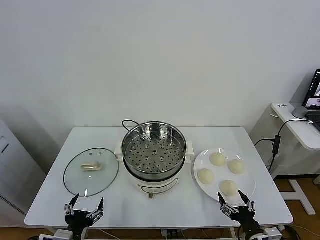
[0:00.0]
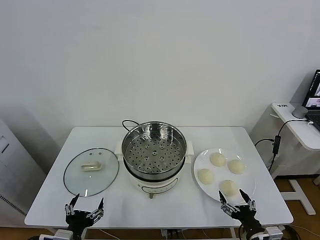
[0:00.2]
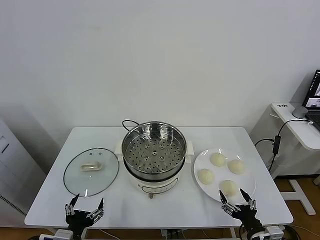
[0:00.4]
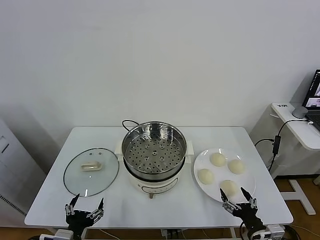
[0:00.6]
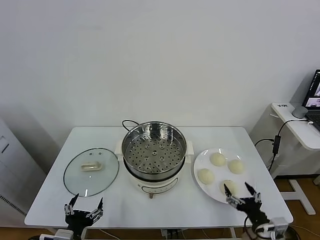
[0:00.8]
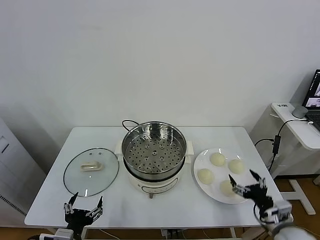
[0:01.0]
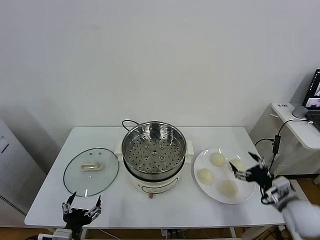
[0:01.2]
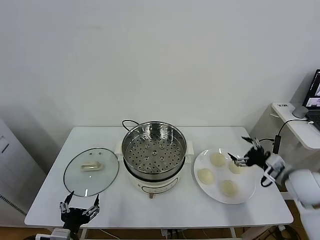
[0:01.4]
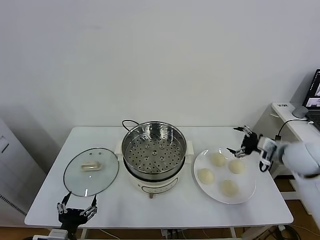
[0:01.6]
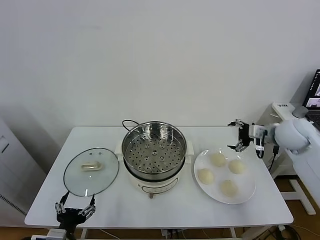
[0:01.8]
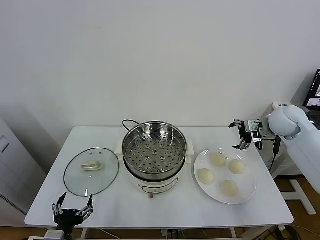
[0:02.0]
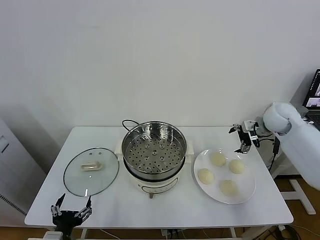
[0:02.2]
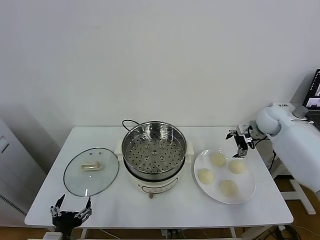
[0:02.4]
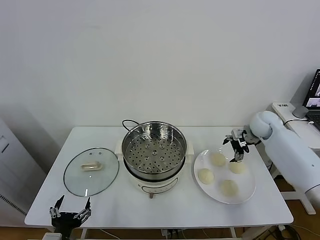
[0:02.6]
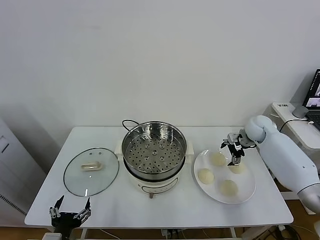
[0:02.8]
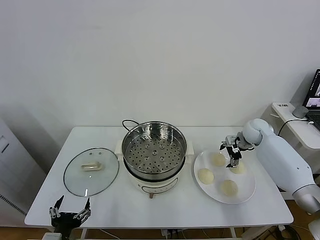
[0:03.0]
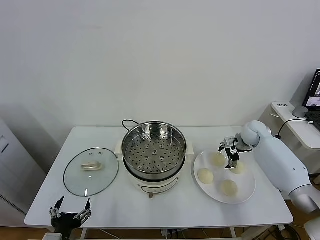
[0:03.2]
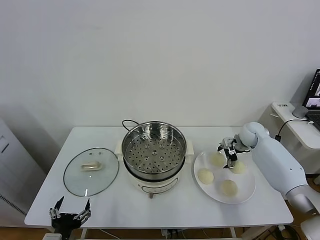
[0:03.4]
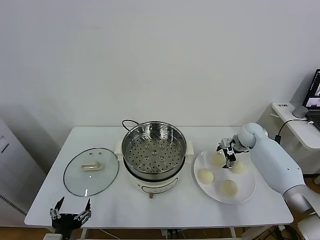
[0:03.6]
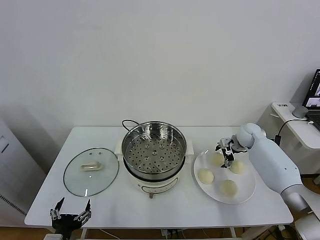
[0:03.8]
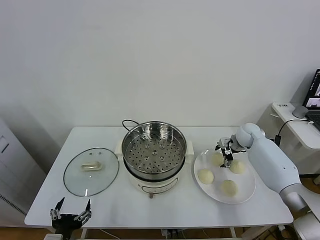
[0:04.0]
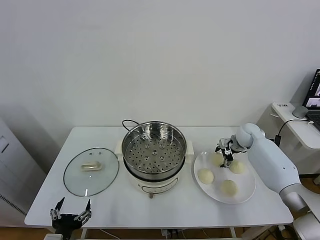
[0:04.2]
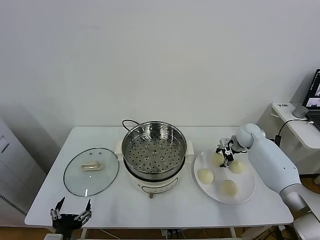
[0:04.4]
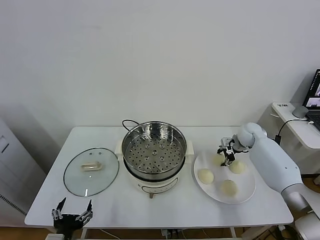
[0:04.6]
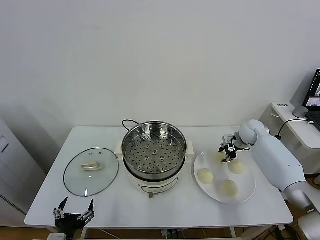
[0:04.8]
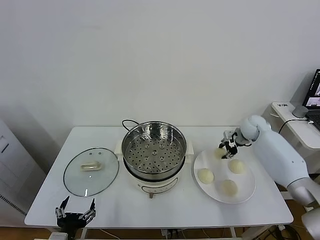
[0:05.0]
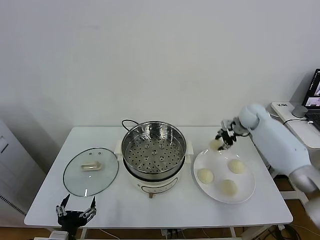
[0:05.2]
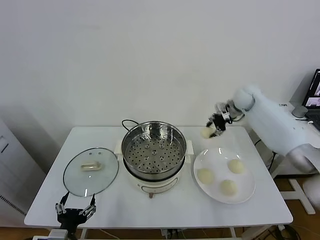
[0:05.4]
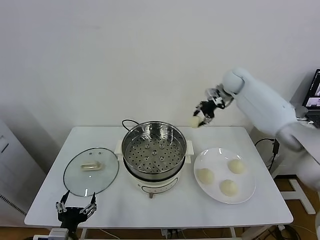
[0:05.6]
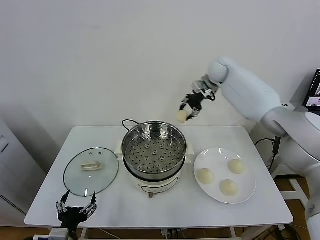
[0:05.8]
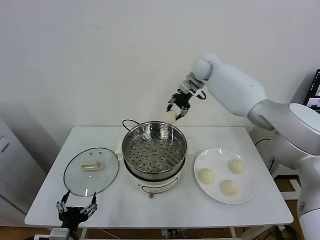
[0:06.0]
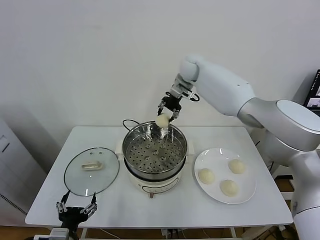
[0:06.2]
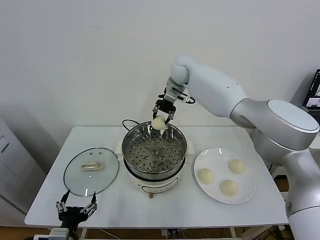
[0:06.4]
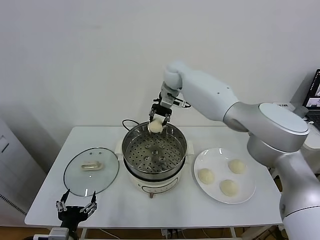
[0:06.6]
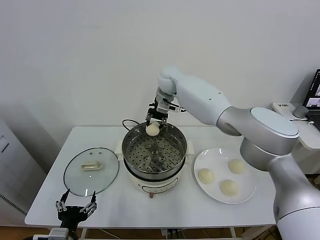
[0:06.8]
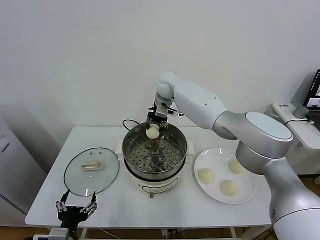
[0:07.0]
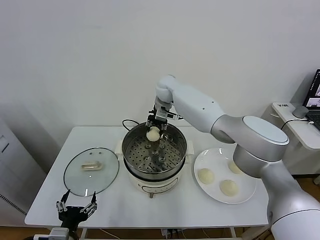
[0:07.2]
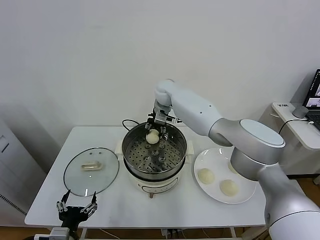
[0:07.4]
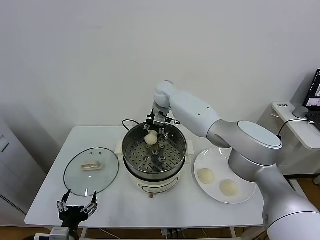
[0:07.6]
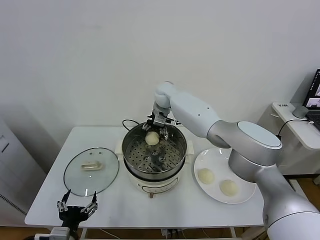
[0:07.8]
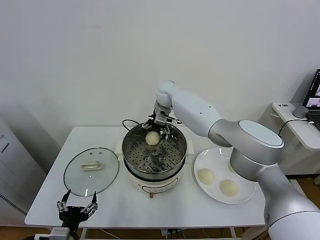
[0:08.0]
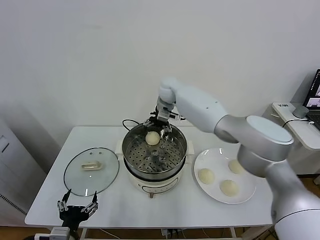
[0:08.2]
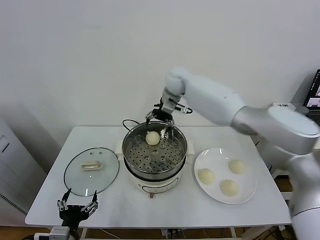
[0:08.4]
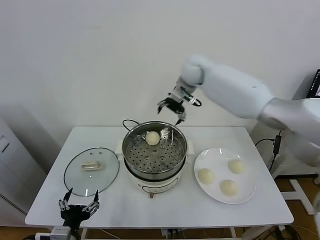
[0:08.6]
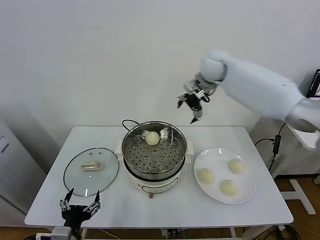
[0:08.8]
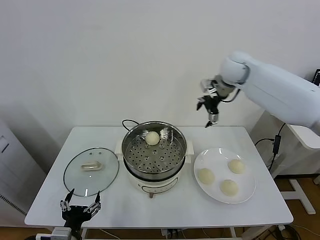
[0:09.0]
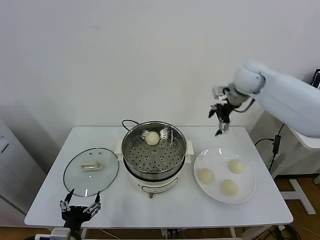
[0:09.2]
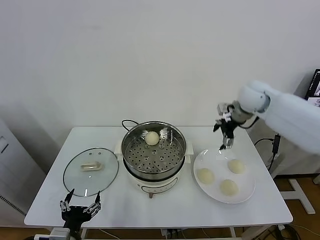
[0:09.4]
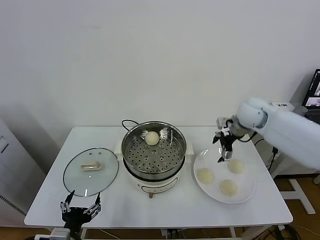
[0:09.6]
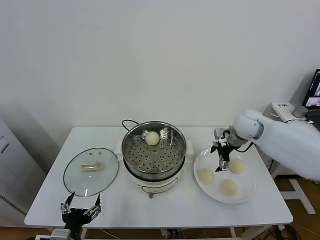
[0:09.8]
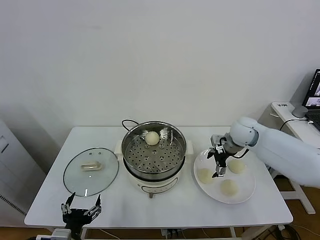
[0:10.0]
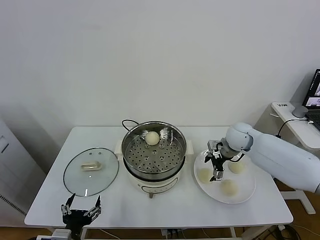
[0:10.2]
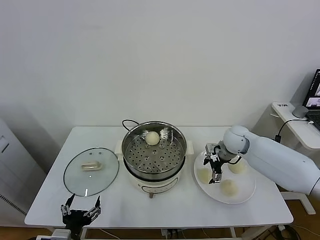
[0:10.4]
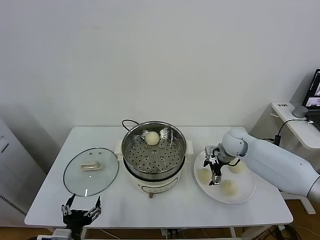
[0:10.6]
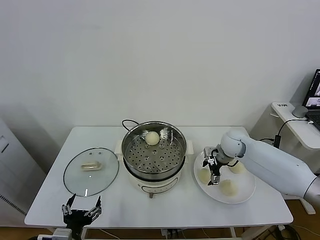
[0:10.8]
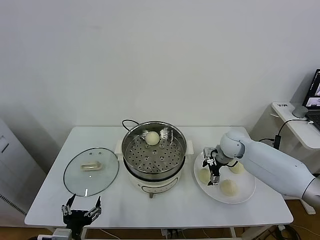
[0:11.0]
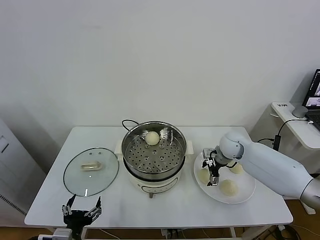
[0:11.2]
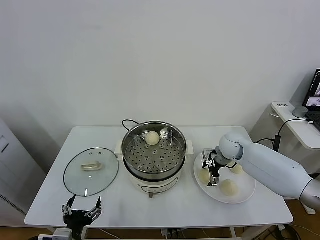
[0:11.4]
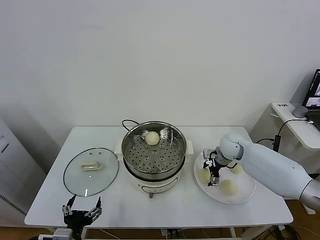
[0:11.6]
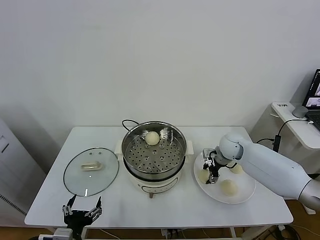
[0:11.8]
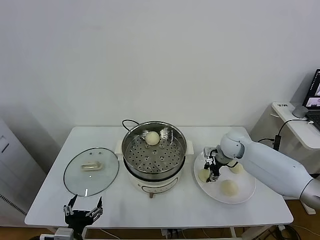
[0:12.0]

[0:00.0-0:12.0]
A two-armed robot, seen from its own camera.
Task of the whole recording: take steamed baozi put them in steamer.
Step, 0.0 to 4.6 s: Grasp the baozi in the plate with right gripper.
Step, 4.8 to 8.2 s: Place the baozi on the steamer with right gripper.
Step, 8.4 to 12.0 s: Grasp the baozi in the plate with right gripper.
1.6 to 3.0 s: The right gripper is displaced forward and downward by roughly 20 cm.
3.0 to 4.4 s: The right gripper closes.
4.4 to 6.0 s: The right gripper travels upward and to the left by approximately 35 cm.
6.0 to 7.6 s: The right gripper moves to the left and downward, roughly 15 cm.
7.6 to 9.0 s: The right gripper travels to the right and upward by some 25 cm, and opens its fingers.
9.0 to 10.4 s: The right gripper moves downward, roughly 25 cm.
10.4 to 12.0 s: The right gripper closes up.

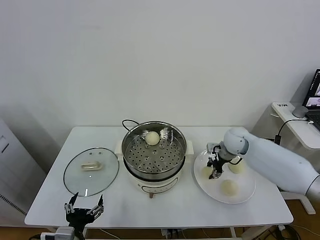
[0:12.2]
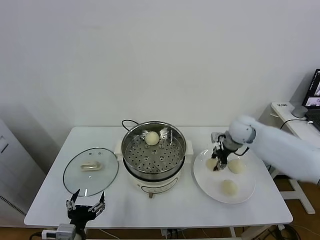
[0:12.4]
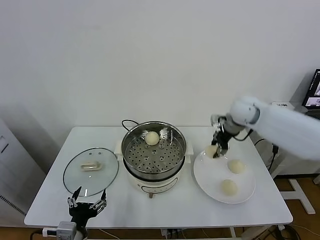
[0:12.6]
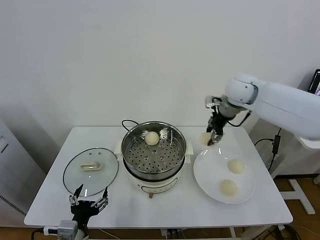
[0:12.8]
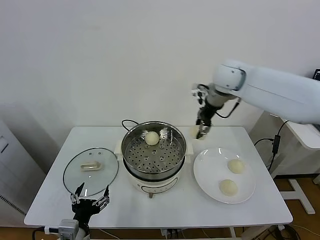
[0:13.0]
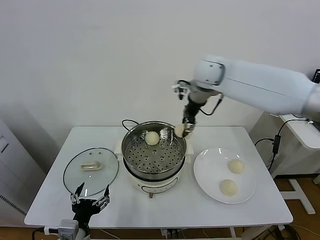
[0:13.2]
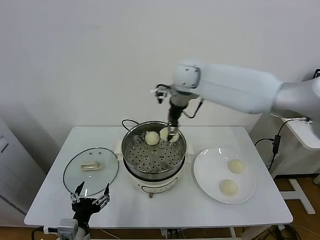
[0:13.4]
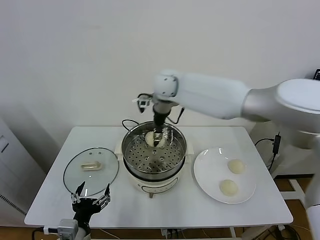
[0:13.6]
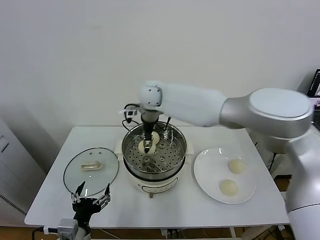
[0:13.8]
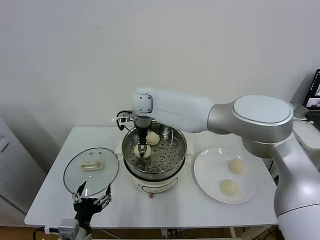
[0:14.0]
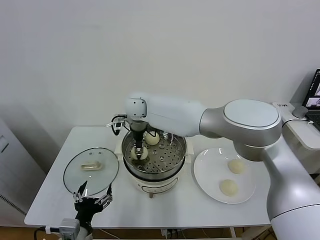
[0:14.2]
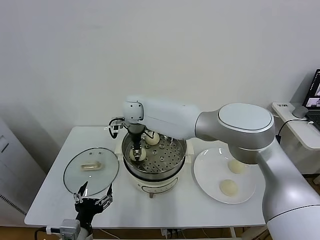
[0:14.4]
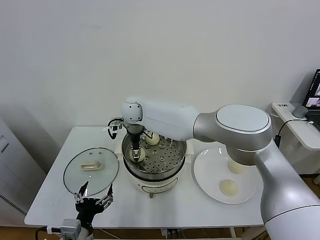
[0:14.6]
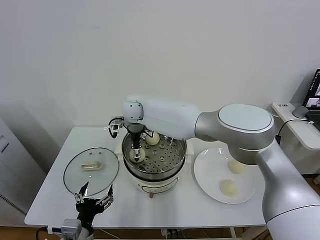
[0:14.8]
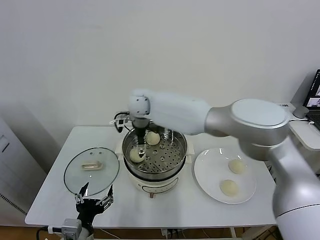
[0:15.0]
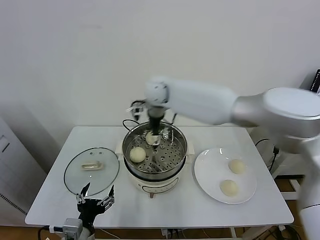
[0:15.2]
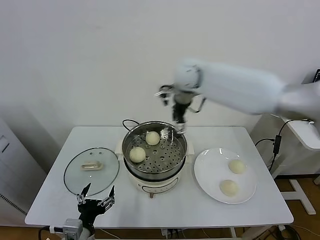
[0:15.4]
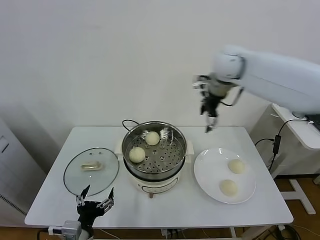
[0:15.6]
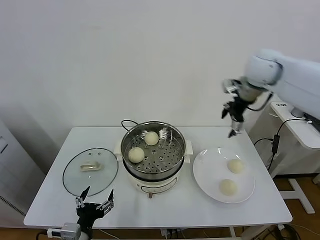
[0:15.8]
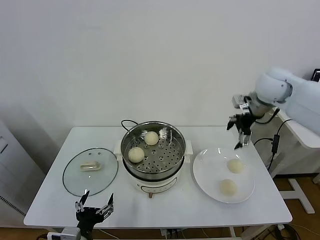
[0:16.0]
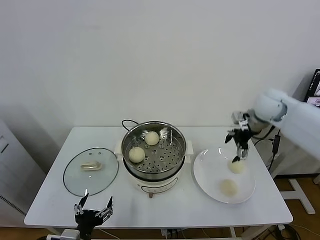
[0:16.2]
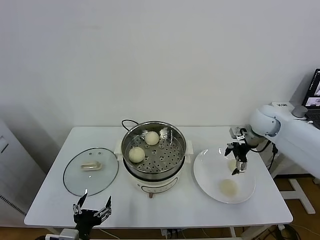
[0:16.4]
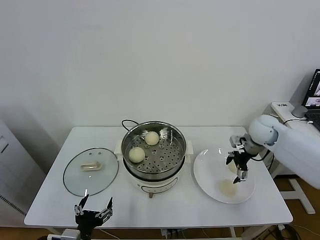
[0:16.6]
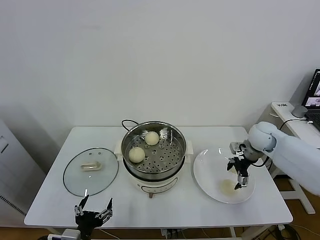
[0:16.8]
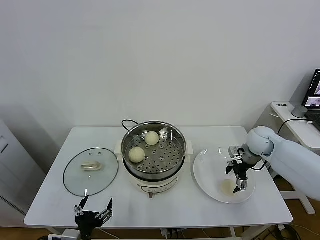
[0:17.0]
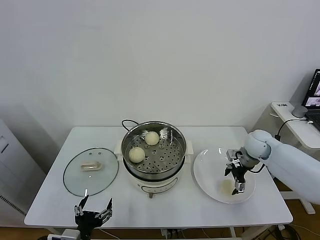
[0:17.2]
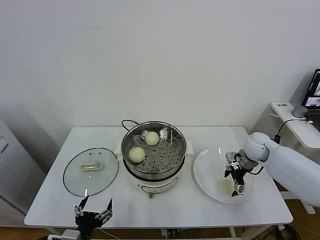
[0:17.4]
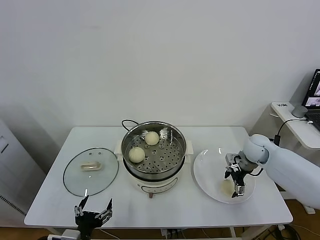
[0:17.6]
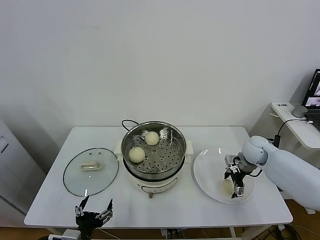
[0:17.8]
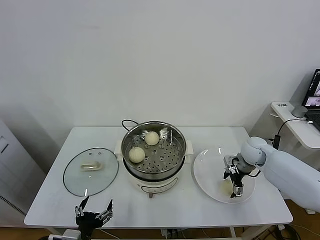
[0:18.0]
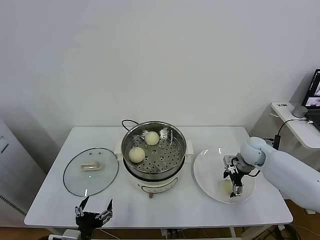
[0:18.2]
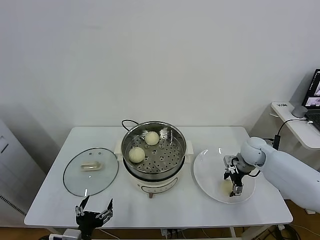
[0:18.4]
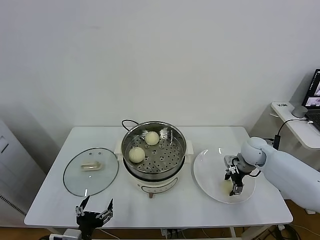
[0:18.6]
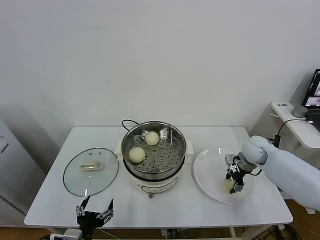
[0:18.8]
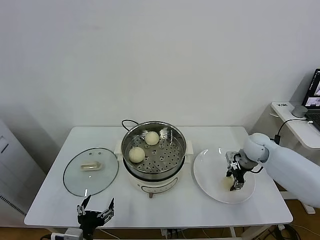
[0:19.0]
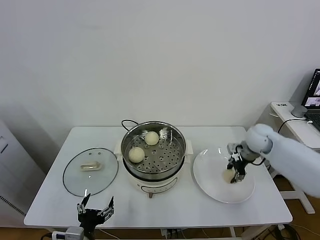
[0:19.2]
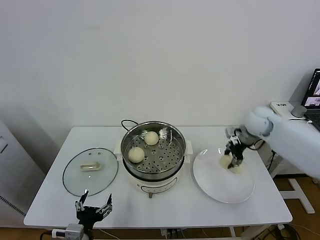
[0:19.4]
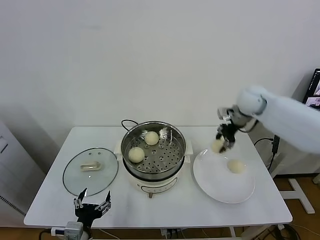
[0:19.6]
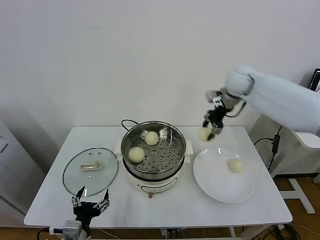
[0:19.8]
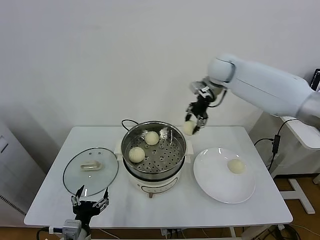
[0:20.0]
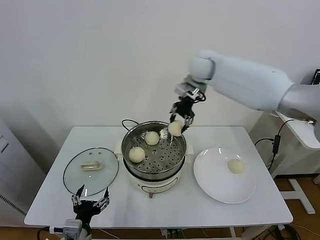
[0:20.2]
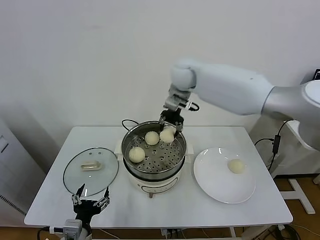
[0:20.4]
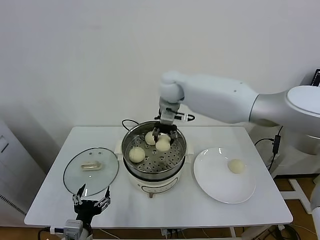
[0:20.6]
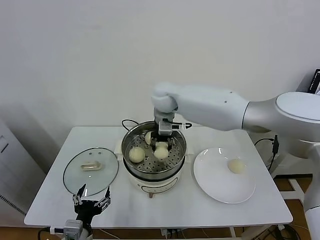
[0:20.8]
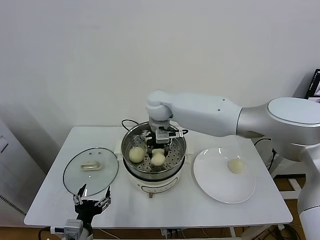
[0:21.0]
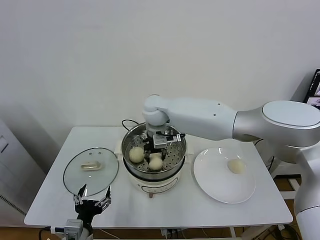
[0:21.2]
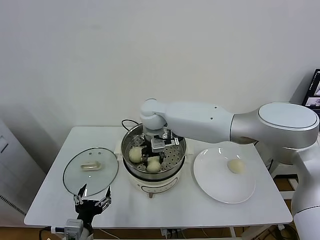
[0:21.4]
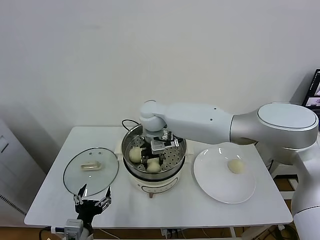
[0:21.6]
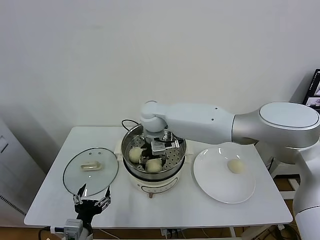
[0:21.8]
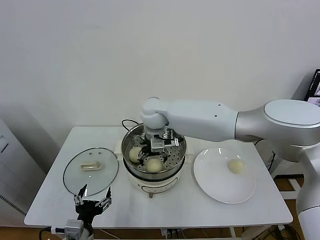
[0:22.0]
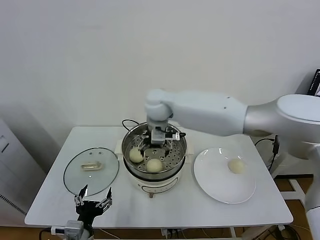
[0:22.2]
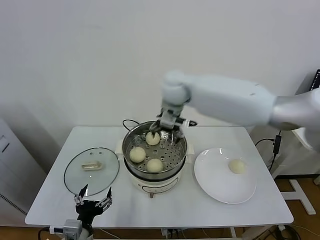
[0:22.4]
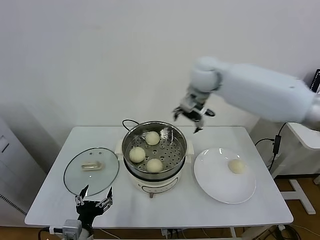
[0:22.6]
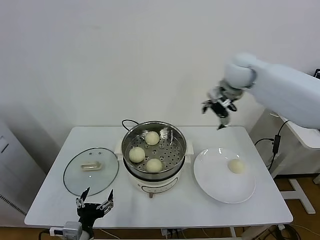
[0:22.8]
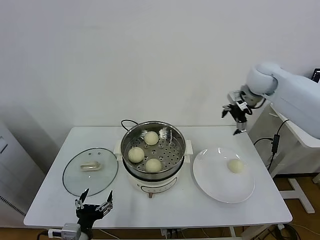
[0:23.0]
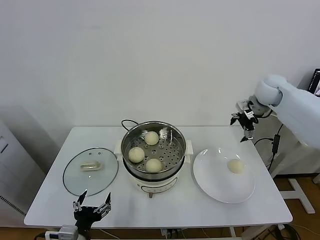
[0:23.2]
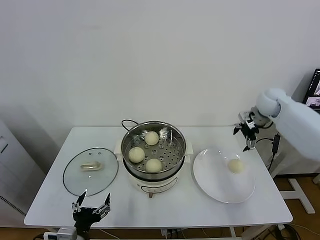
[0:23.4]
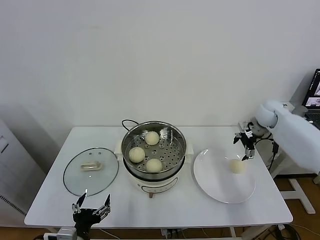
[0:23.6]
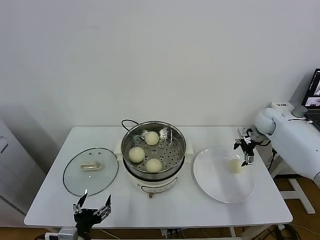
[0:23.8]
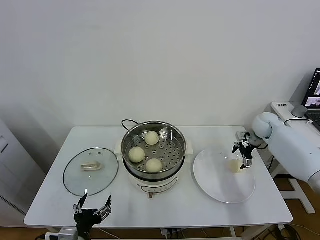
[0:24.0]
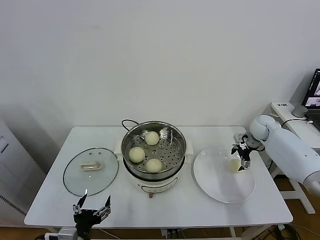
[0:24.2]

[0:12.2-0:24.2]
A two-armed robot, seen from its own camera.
Task of the whole recording: take steamed baozi put them in steamer.
Step, 12.2 to 15.0 s: Place the baozi on the steamer with right gripper.
Step, 15.2 to 18.6 s: Grasp the baozi in the plate with right gripper.
Step, 18.8 to 22.0 s: Place the baozi on the steamer with right gripper.
12.2 to 13.8 s: The right gripper shifts some 35 cm to the left and upward.
13.8 to 15.2 s: The right gripper moves to the right, approximately 5 cm, and opens up.
15.2 to 16.6 s: The right gripper travels to the right and downward by some 35 cm.
16.6 to 18.2 s: The right gripper is displaced downward by roughly 10 cm.
18.2 to 19.8 s: The right gripper shifts some 30 cm upward, to the left and forward, and closes.
19.8 to 21.2 s: The right gripper is displaced to the left by some 25 cm.
21.2 to 22.6 s: The right gripper goes approximately 20 cm to the right and upward, and opens its fingers.
22.6 to 24.2 s: The right gripper is displaced to the right and downward by approximately 35 cm.
